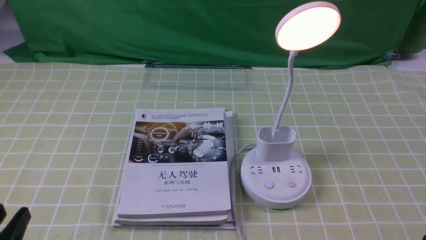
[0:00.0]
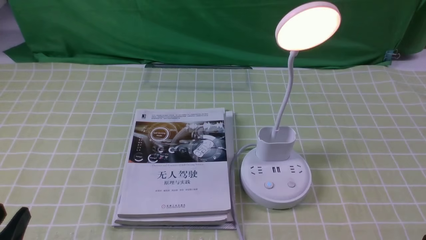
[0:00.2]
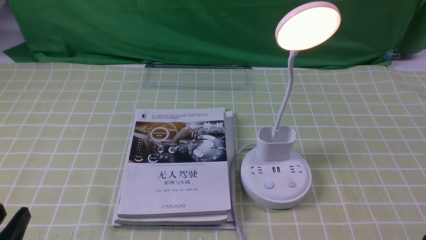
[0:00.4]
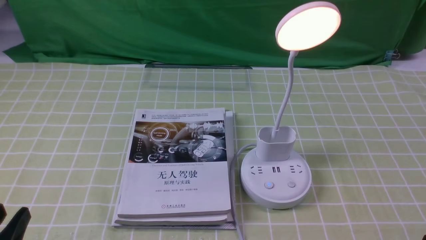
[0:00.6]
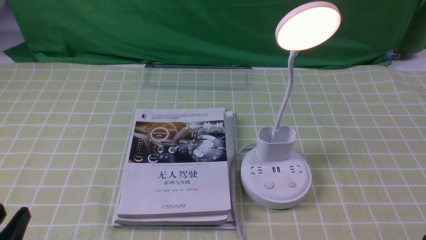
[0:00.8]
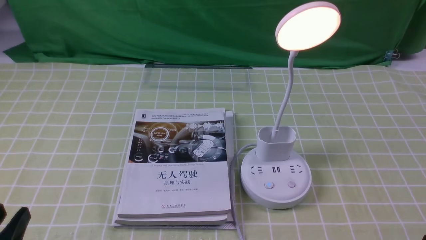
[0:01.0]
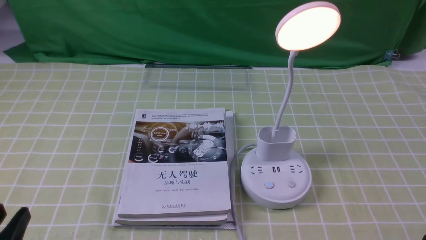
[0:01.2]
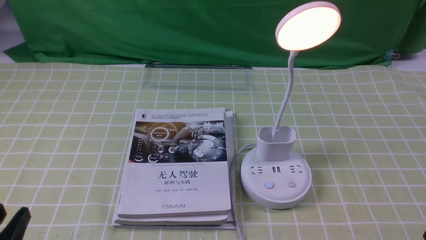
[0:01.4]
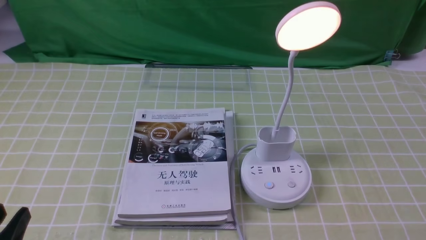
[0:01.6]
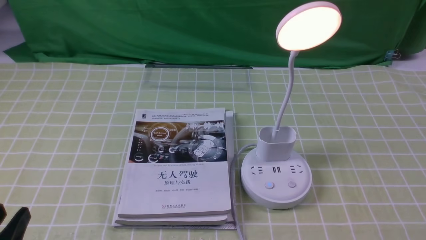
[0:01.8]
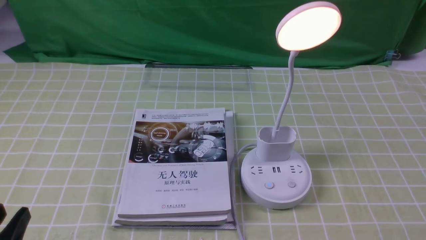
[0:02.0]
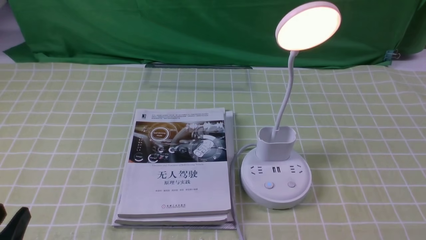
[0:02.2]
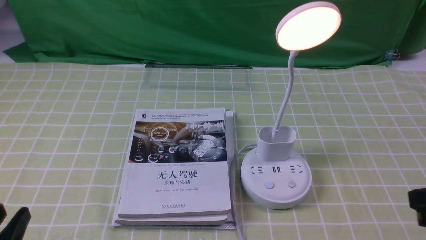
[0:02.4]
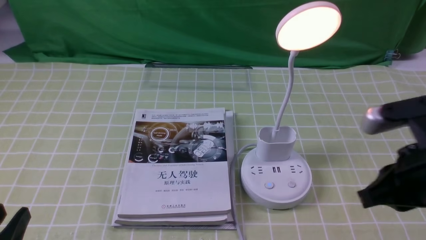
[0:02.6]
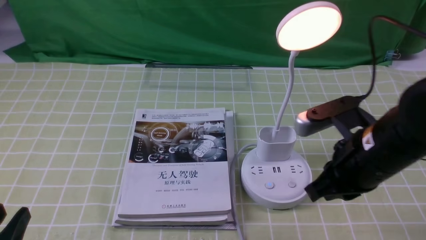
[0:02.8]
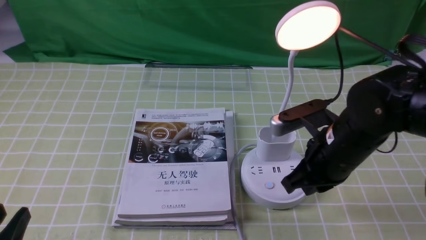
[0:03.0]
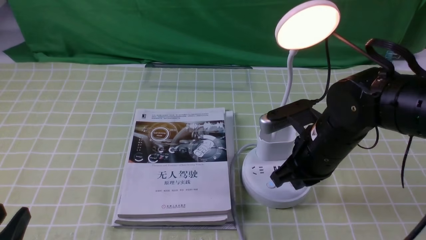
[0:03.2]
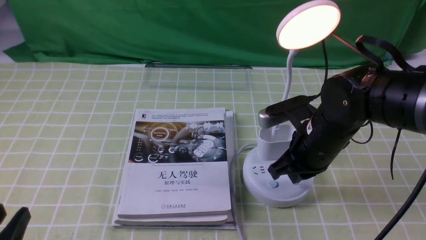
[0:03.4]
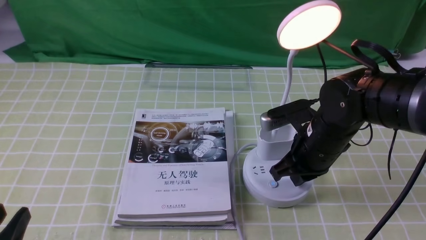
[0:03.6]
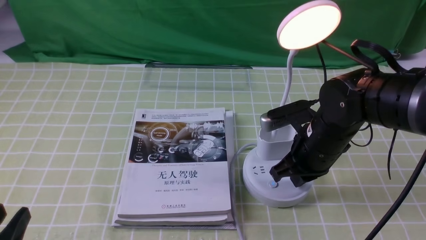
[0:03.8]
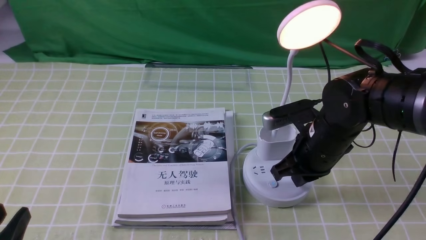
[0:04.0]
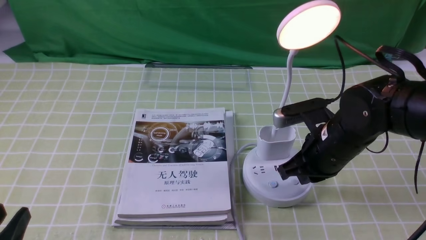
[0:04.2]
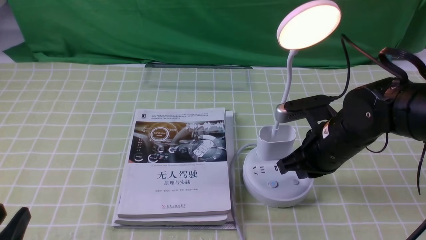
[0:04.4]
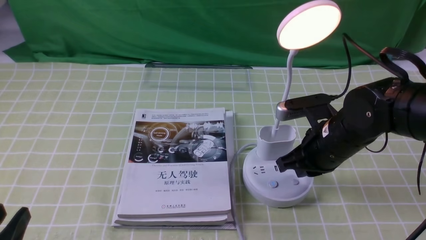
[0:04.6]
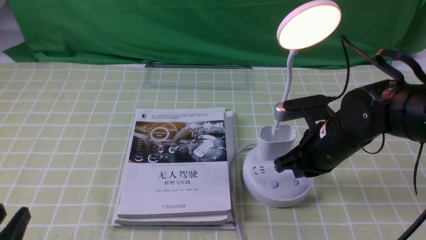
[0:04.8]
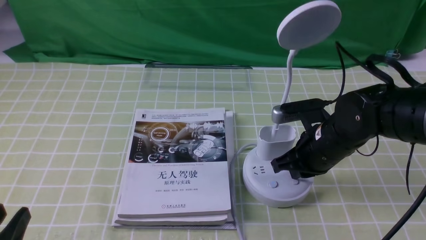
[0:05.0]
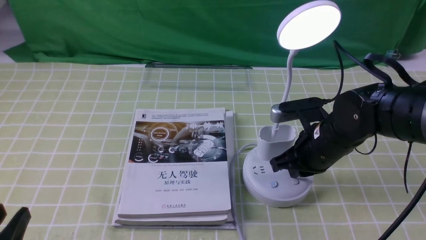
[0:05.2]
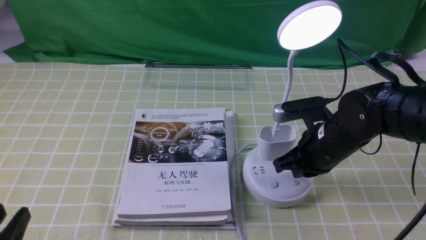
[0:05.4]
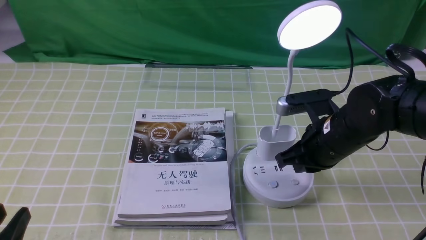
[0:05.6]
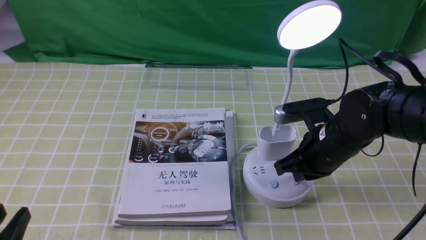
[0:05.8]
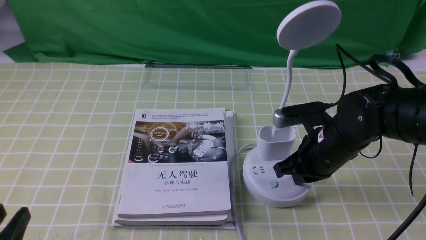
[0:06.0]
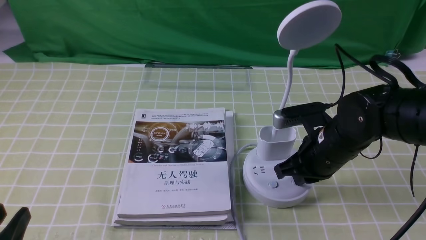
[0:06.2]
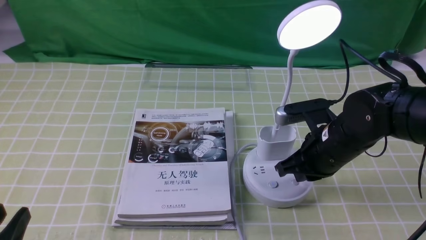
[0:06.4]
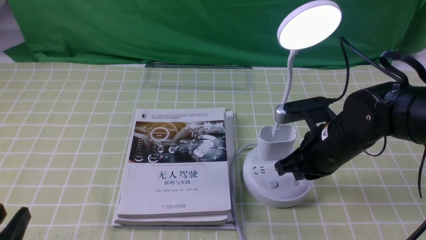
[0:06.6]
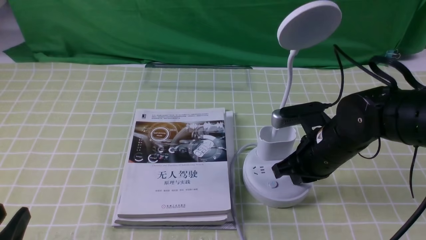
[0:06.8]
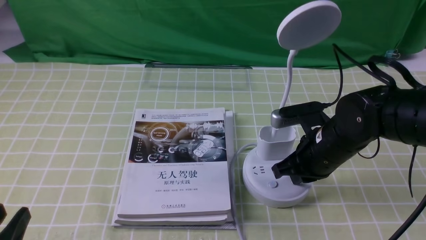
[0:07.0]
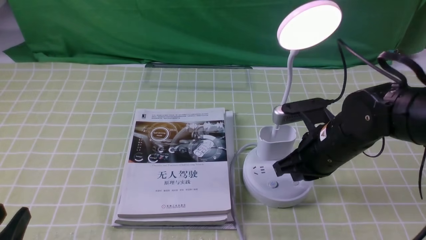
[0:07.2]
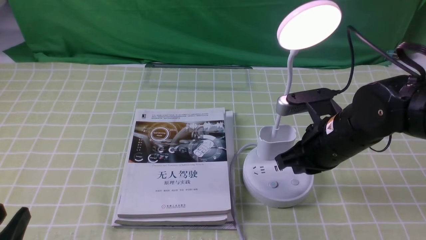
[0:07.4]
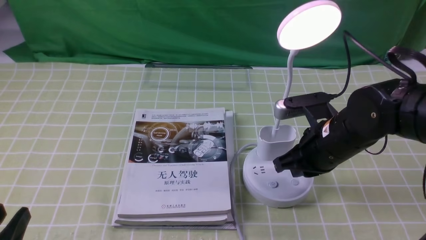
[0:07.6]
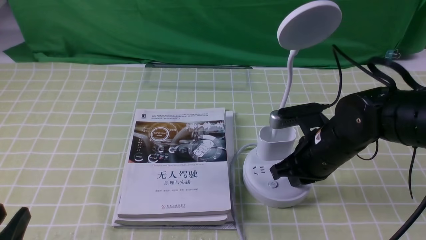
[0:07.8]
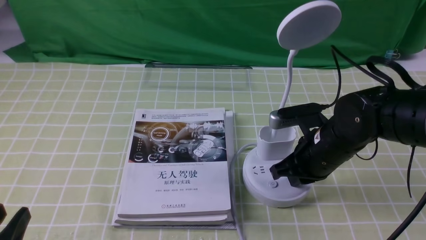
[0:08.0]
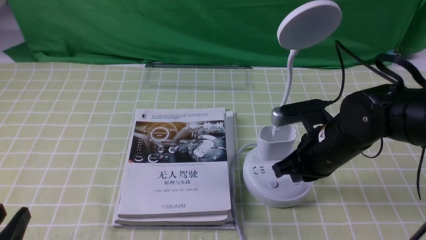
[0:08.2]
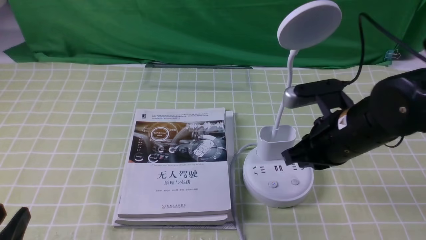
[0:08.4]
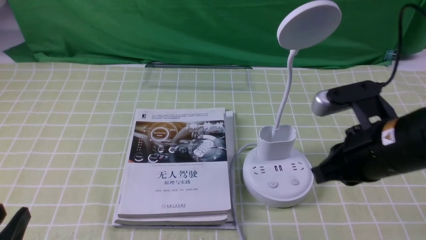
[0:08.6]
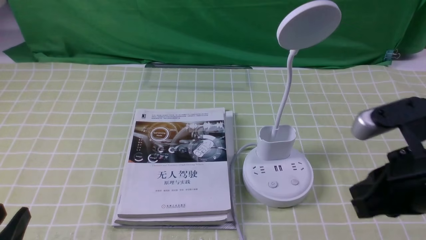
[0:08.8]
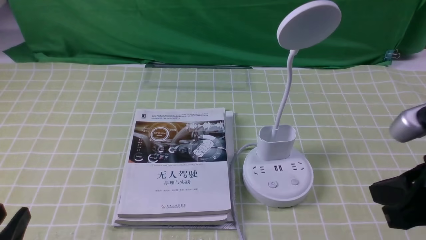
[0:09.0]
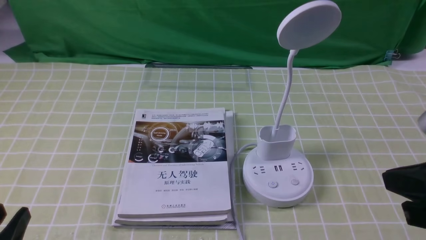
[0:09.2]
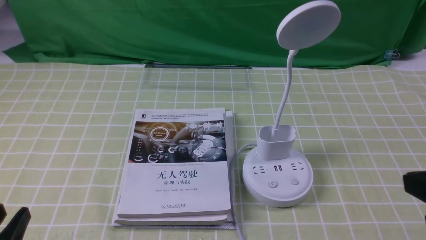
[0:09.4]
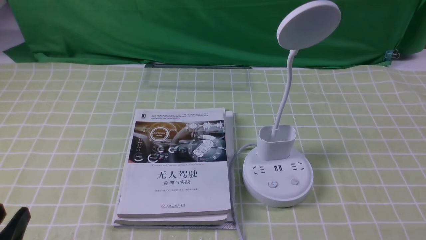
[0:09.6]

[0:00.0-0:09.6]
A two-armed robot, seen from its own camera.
Task of the whole recording: turn off the desk lamp on the green coffee tablecloth by hand.
Step, 0:00.0 to 0:08.2: use the right arm to press the button switch on the lamp holder.
0:01.6 to 0:03.2: The right gripper goes roughly 30 cm forward and to the left, and closes up.
0:03.2 to 0:04.8: The grippers move only a little.
0:04.8 to 0:06.4: Both grippers stay put.
0:06.4 to 0:08.0: There are only small adjustments of the grippers.
0:08.0 to 0:09.6: The right gripper moves backward, to the right and upward, roughly 25 cm.

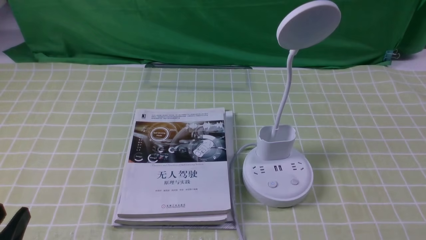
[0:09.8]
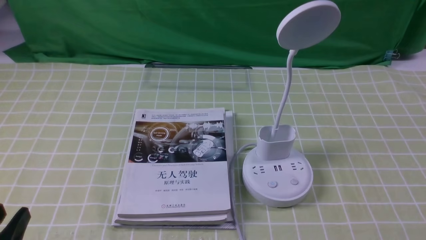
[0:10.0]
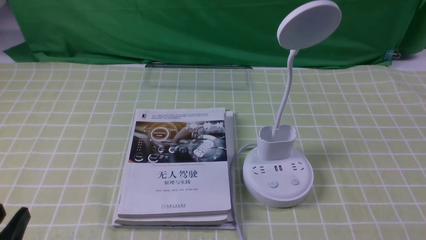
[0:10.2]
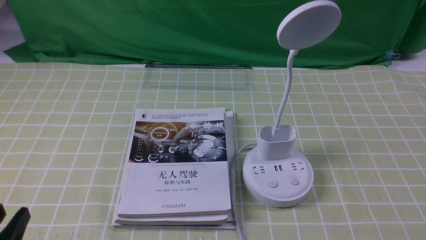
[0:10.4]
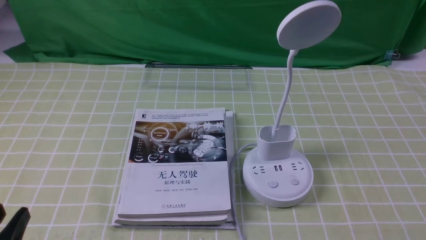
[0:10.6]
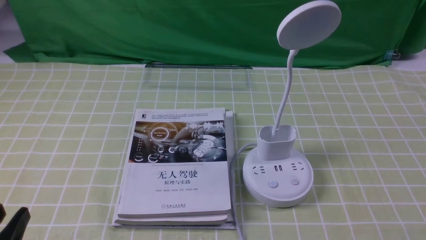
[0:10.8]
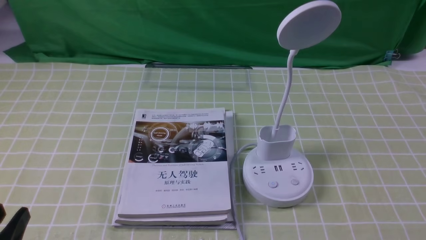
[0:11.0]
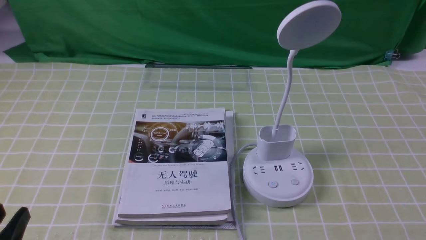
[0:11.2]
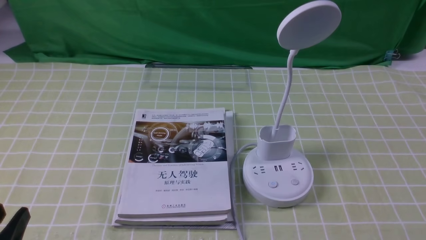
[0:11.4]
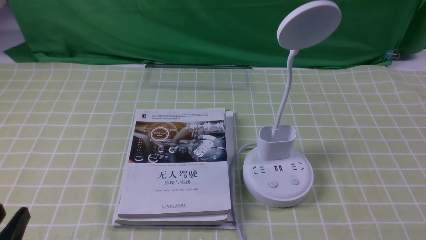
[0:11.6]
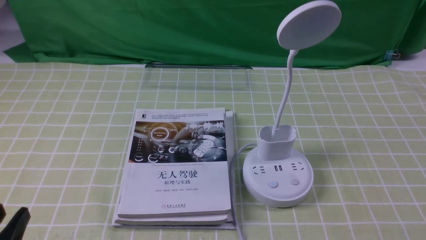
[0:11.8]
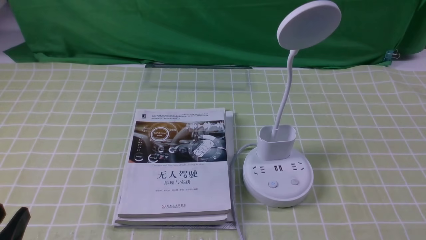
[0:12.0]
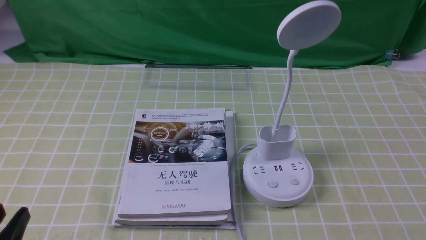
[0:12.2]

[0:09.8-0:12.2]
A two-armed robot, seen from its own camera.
Task of the whole recording: turn off the desk lamp on the green coffee tablecloth by hand.
0:11.0 to 0:12.2: Both grippers stay about where they are.

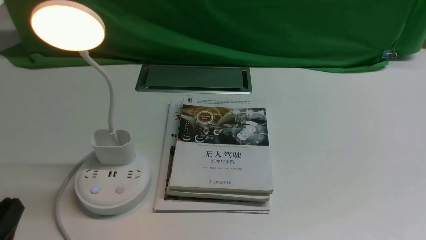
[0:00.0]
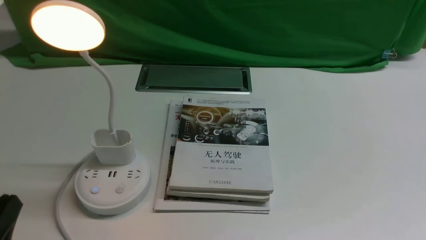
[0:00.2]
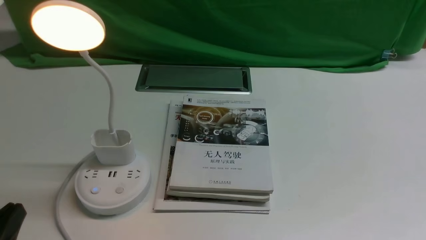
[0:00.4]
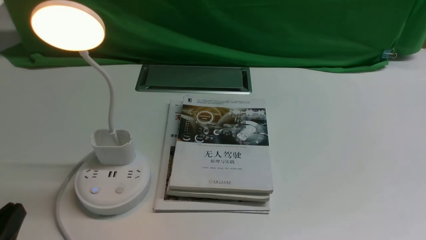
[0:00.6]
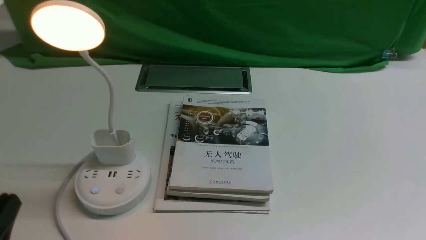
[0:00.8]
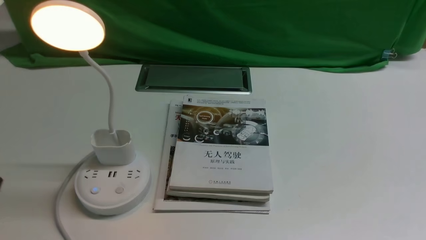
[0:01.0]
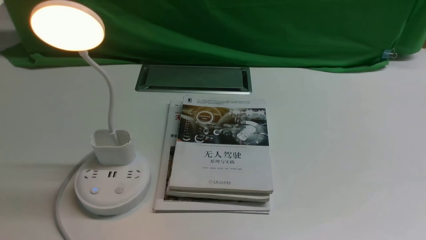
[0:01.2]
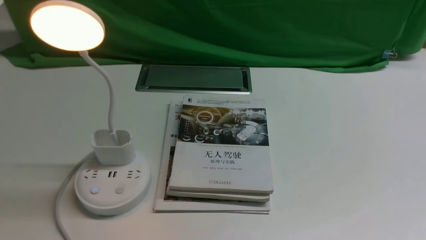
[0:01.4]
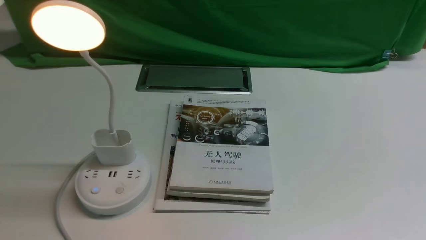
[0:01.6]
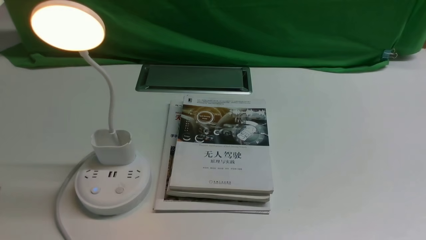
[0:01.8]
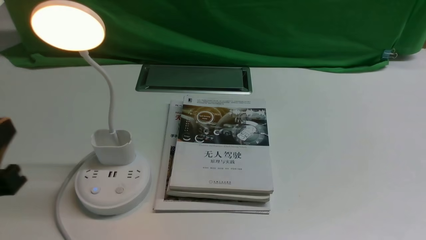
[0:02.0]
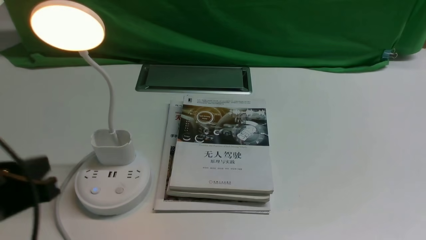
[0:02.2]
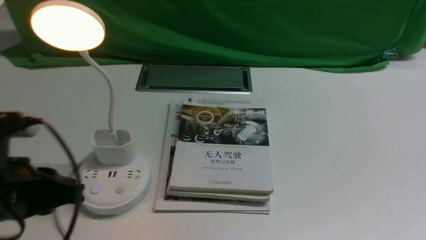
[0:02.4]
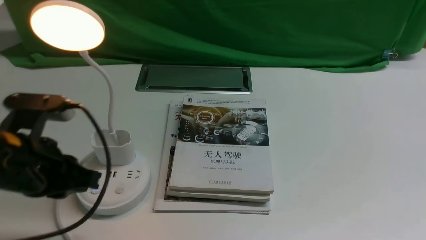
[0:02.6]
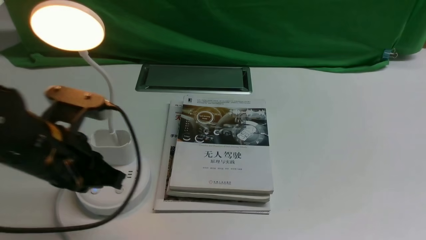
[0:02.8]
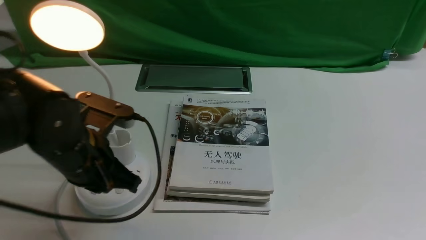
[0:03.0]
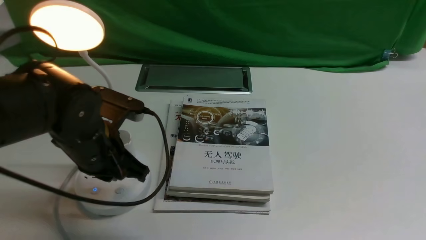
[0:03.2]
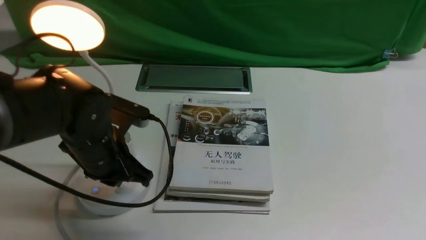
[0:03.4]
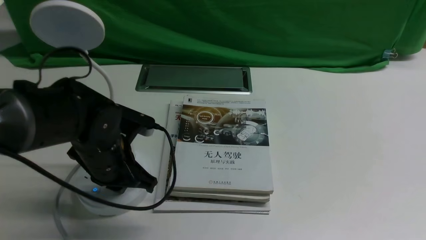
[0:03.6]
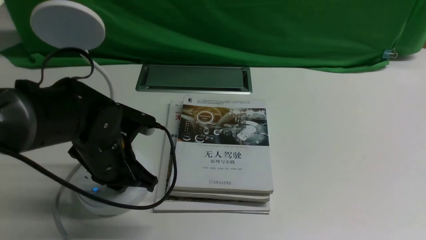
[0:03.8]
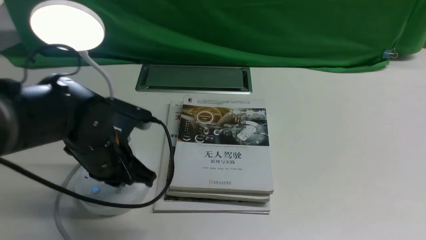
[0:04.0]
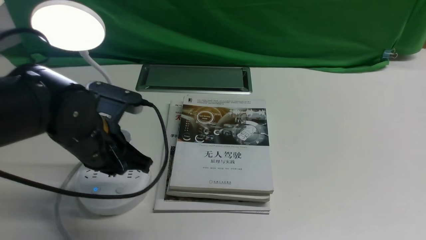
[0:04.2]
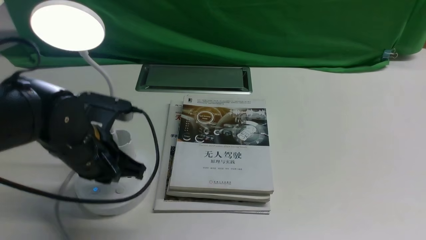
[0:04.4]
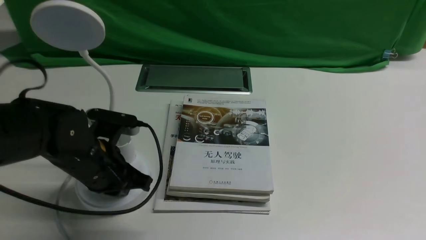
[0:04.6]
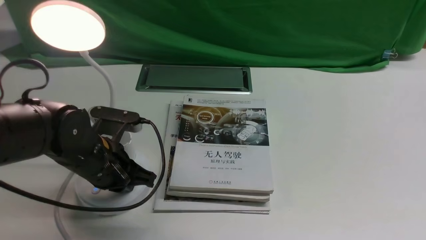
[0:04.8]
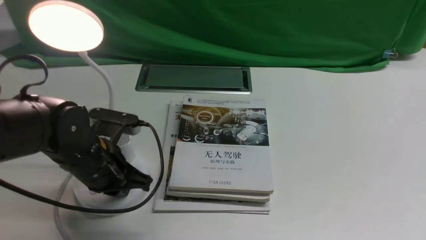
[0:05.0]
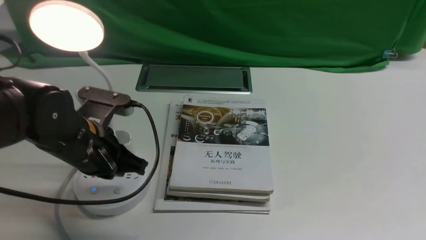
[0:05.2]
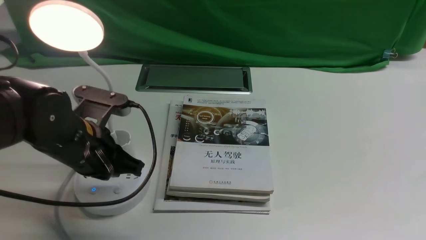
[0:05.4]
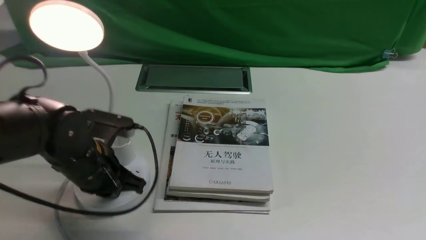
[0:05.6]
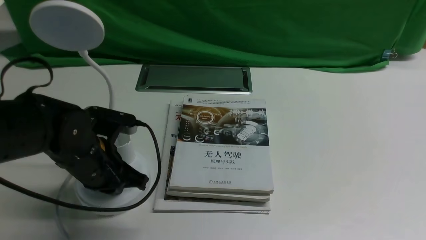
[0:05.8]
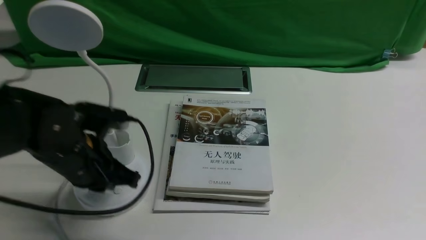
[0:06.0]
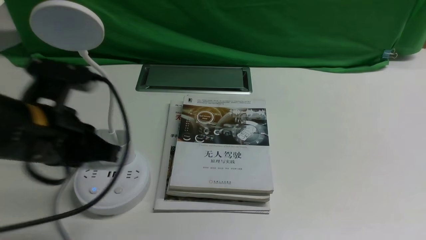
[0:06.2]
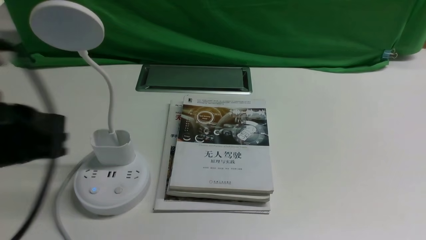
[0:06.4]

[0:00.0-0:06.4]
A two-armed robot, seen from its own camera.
Task of the whole recording: turn off the desk lamp on the white desktop by hand.
Step, 0:00.0 to 0:06.0: use the left arm to press the button switch on the lamp holder.
0:00.0 to 0:01.6: The left gripper goes roughly 10 cm upward.
0:01.6 to 0:03.2: The left gripper shifts some 25 cm forward, to the right and downward.
0:03.2 to 0:04.8: The grippers move only a little.
0:04.8 to 0:06.4: The left gripper heads upward and backward, covering roughly 20 cm.
